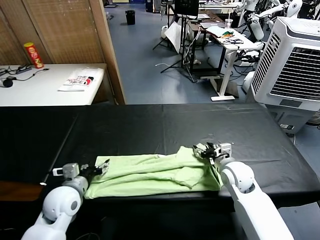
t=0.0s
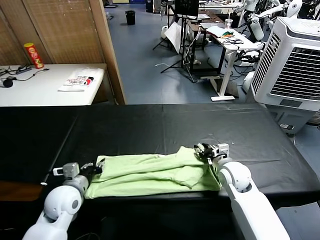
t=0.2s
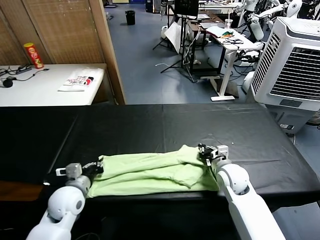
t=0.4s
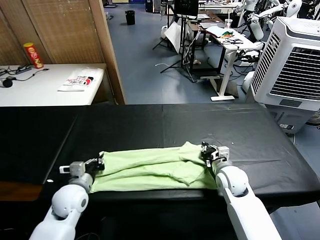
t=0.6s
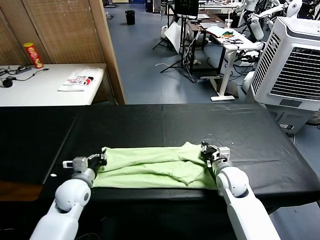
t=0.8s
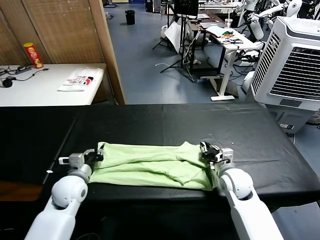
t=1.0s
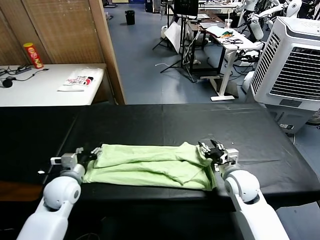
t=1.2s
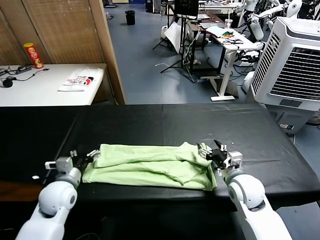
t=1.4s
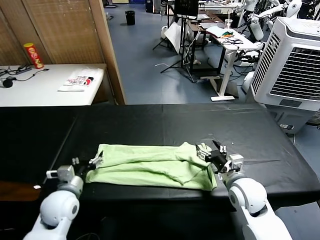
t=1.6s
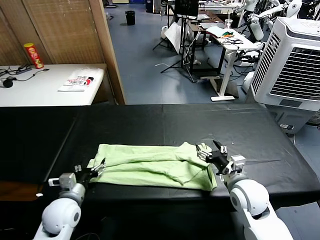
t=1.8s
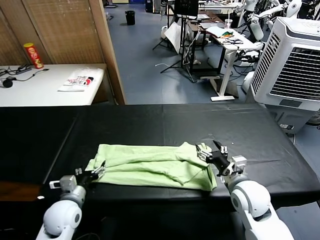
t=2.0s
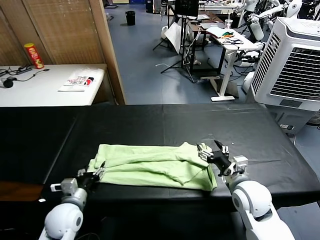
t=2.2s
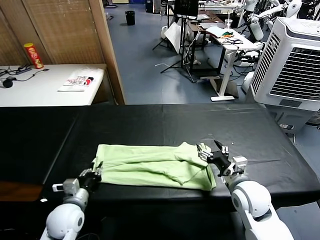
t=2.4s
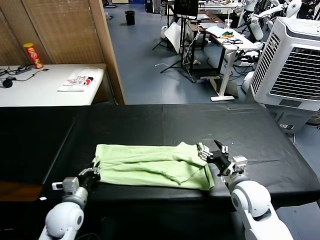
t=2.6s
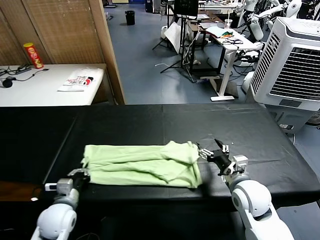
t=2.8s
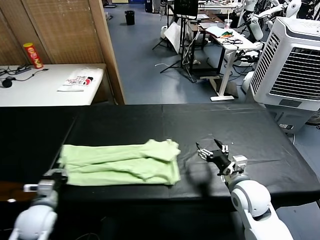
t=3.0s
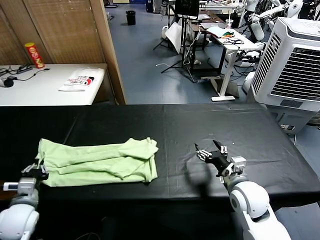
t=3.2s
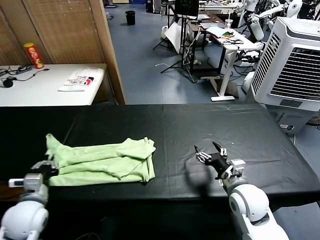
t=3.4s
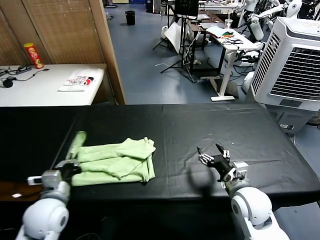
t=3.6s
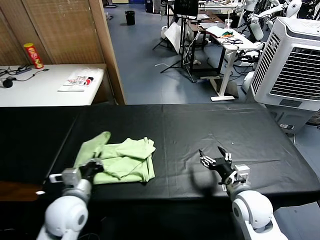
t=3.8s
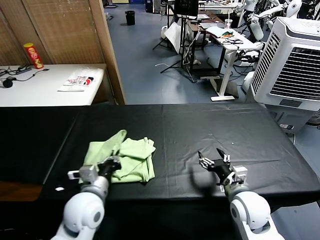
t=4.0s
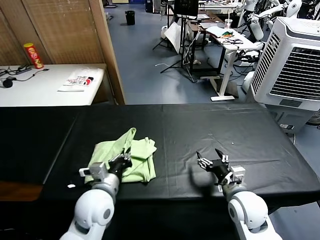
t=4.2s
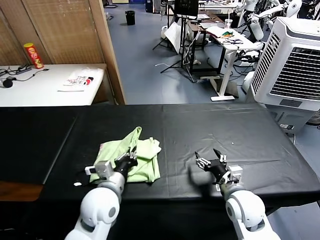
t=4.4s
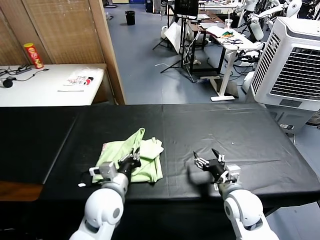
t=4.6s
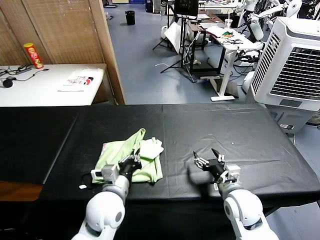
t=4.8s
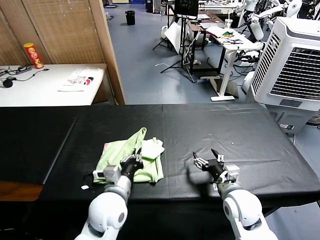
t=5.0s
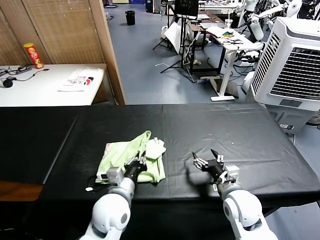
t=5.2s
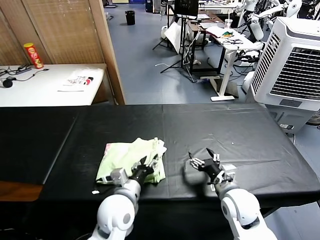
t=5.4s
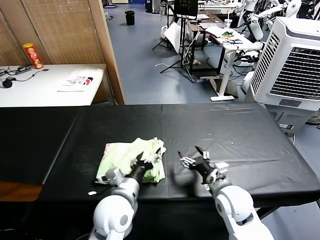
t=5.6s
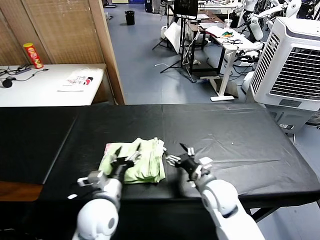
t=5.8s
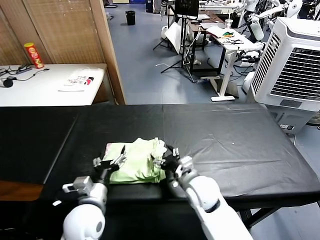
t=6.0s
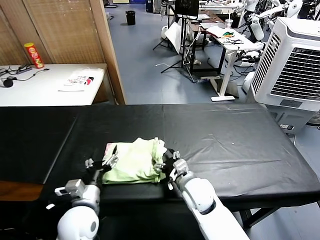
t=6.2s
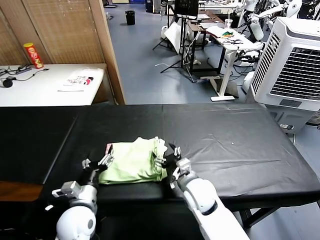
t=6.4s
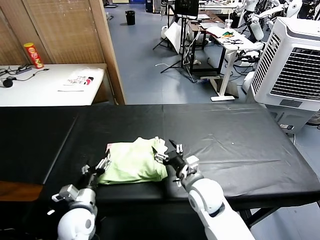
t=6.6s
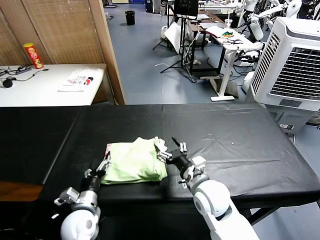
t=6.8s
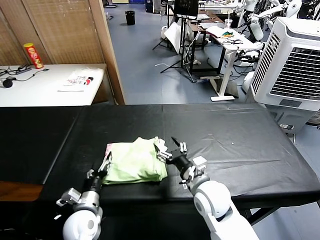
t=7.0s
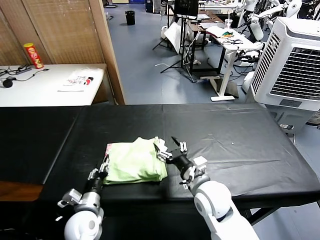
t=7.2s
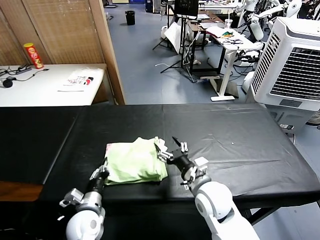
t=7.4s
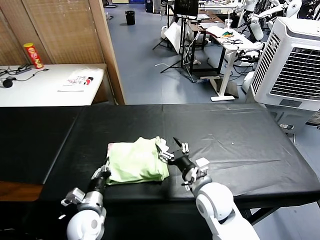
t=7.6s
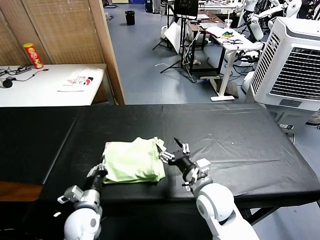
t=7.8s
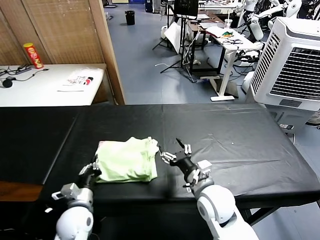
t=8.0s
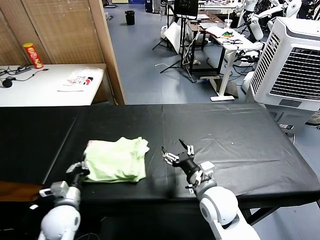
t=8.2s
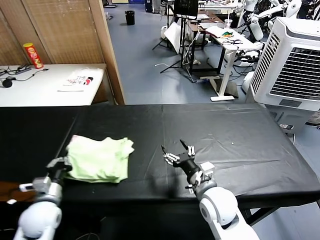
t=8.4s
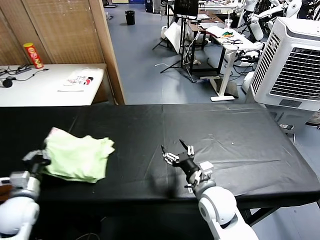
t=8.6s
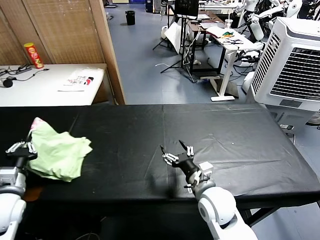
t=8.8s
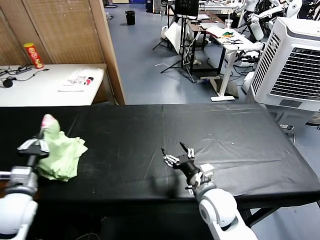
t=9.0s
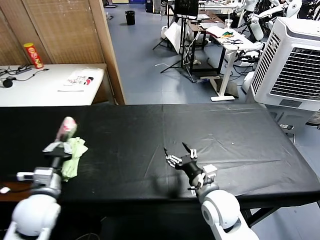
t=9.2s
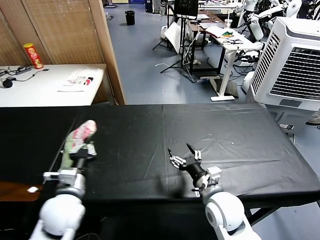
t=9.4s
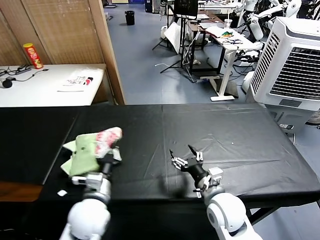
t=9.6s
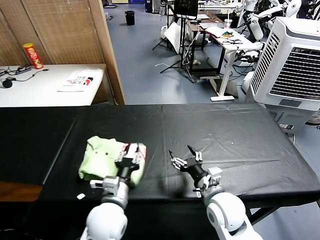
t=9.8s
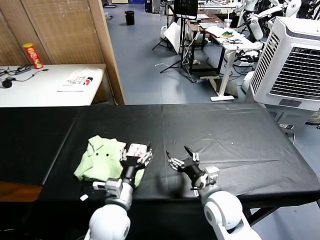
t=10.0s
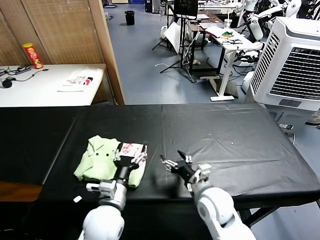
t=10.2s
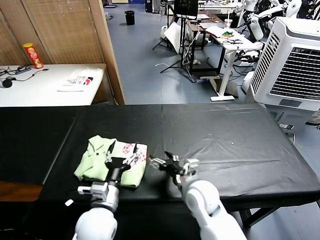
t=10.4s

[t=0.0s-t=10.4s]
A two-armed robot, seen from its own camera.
Task of the whole recording: fold and organize the clothes.
Step, t=0.0s to t=2.4s: use the left gripper to clamp the left edge of the fabric.
Step, t=2.6s to t=5.4s: use the left gripper to drag the left edge of the fabric to the left and folds it over the right edge.
Step, t=5.6s to t=9.8s: Flip the folded clothes over with left gripper.
t=0.0s to t=1.4s: The left gripper closes and opens again, while the right gripper travels backward by some 5 cm, and closes, then reopens.
t=1.4s to t=3.0s: The left gripper travels backward and to the left by roughly 10 cm, and closes.
t=3.0s to t=4.4s: The left gripper shifts roughly 20 cm to the right.
t=4.4s to t=6.0s: The left gripper shifts by approximately 5 cm, and opens. The right gripper moves to the left, about 10 cm.
t=6.0s to t=7.4s: The left gripper goes approximately 10 cm downward, and closes, while the right gripper changes place by some 5 cm.
t=7.4s to t=9.0s: The left gripper heads to the left and upward, covering some 20 cm.
t=9.0s to t=10.4s: The left gripper heads to the right, covering some 25 cm, and opens its fingers.

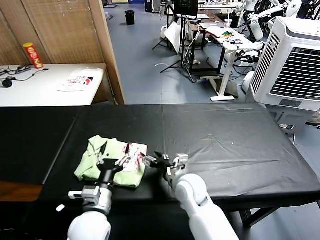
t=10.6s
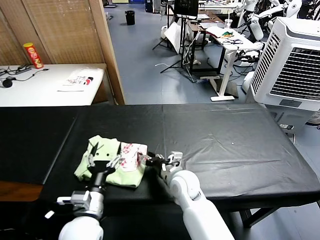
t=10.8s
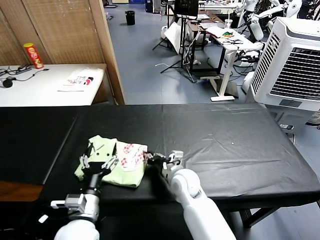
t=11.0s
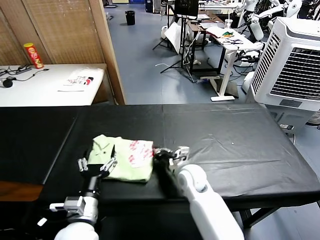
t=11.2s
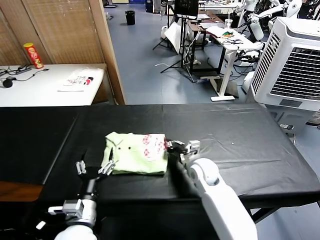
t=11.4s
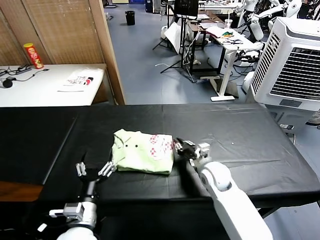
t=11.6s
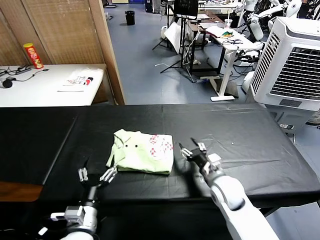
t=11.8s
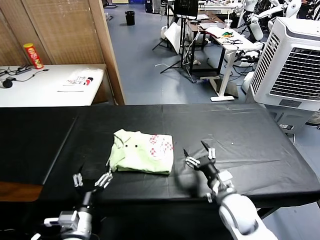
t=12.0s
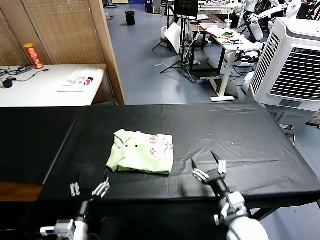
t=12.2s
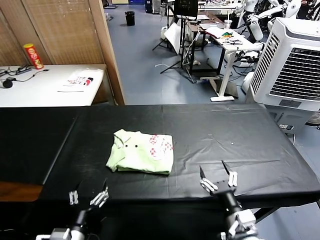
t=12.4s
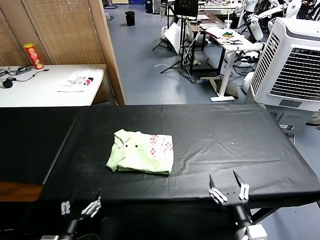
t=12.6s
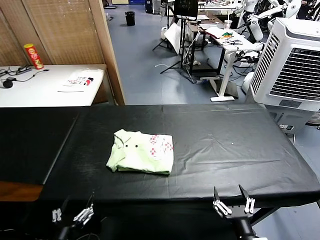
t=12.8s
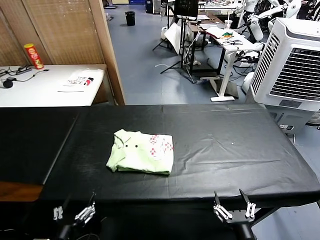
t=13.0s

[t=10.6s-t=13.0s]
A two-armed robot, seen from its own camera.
Task of the whole recording: fold and organize the clothes.
Step, t=10.6s to t=11.6s: Drag the clothes to the center of the table.
t=10.6s to t=11.8s: The right gripper travels to the right by about 10 cm, and closes up. The left gripper moves some 5 cm.
t=11.8s to t=13.0s: The right gripper goes about 25 cm backward, and opens its fingers, while the left gripper goes roughly 10 cm backward and to the left.
